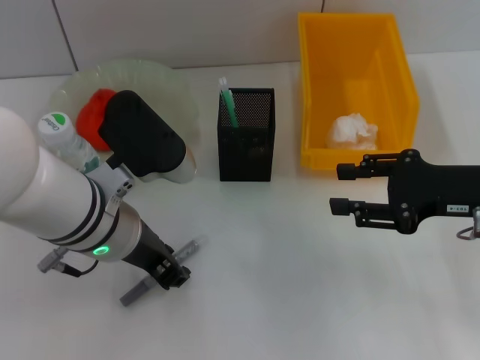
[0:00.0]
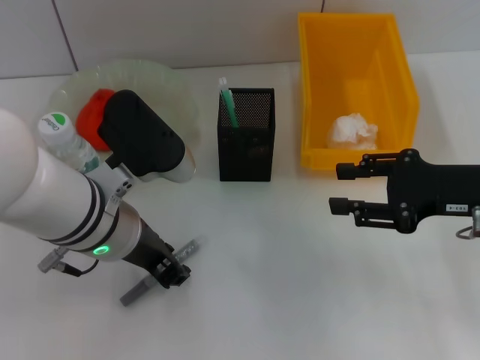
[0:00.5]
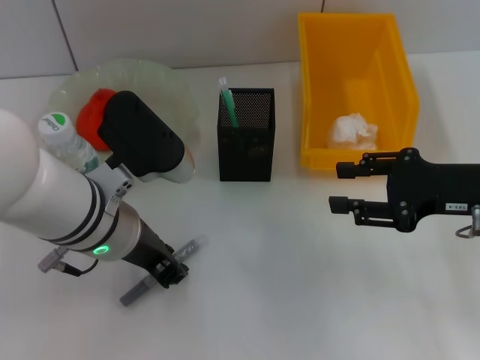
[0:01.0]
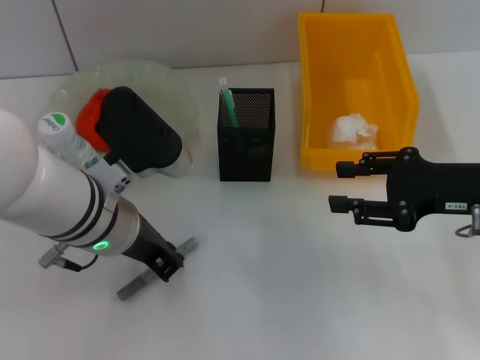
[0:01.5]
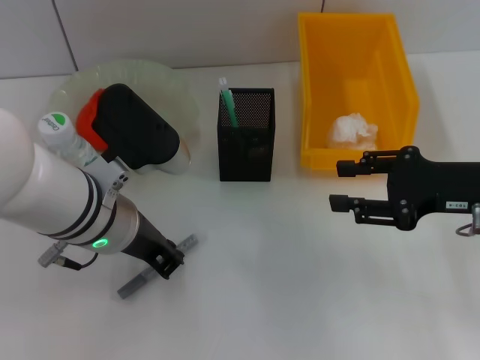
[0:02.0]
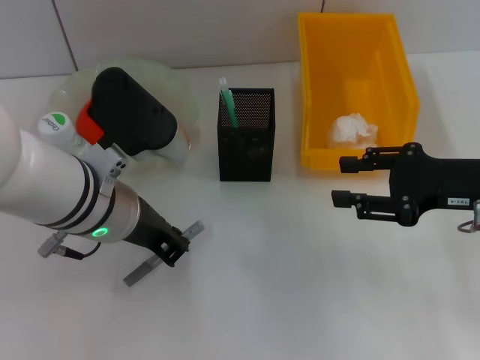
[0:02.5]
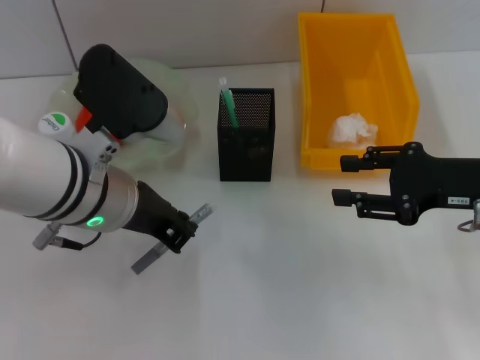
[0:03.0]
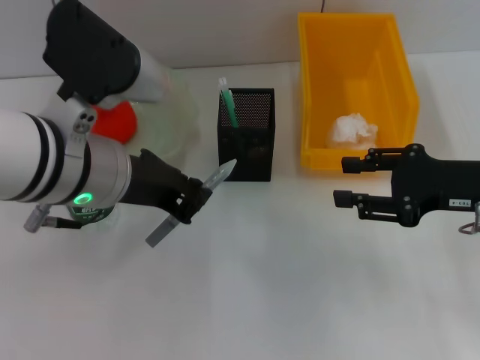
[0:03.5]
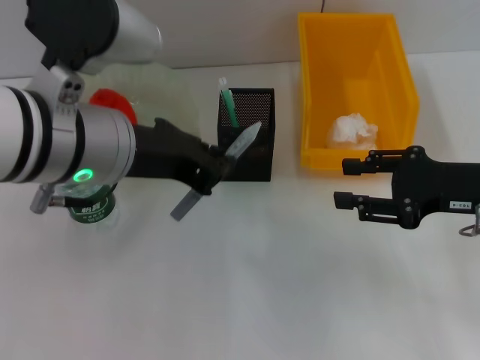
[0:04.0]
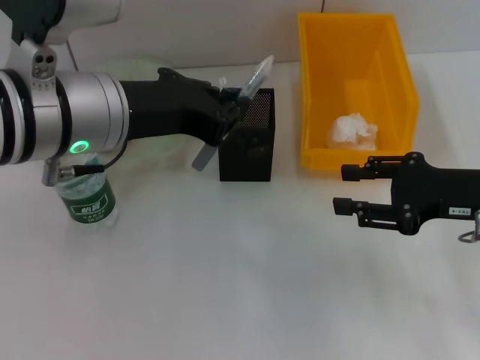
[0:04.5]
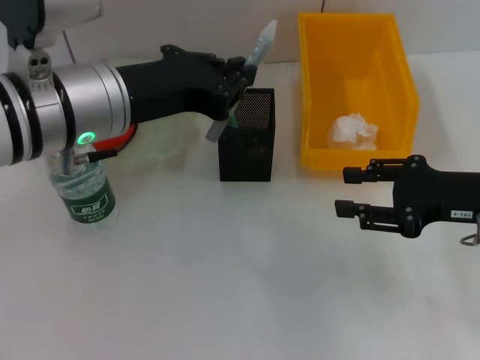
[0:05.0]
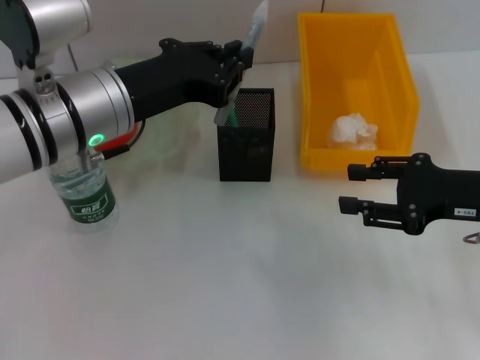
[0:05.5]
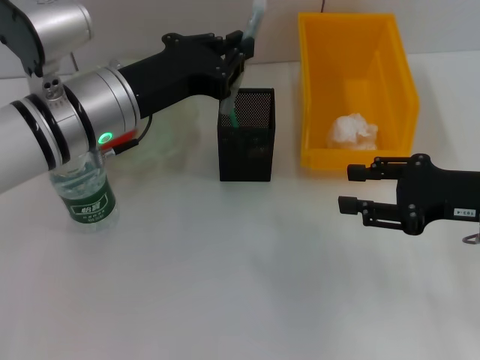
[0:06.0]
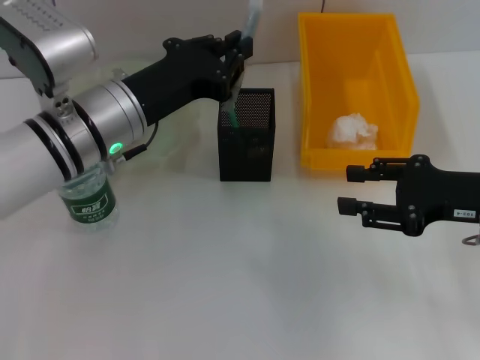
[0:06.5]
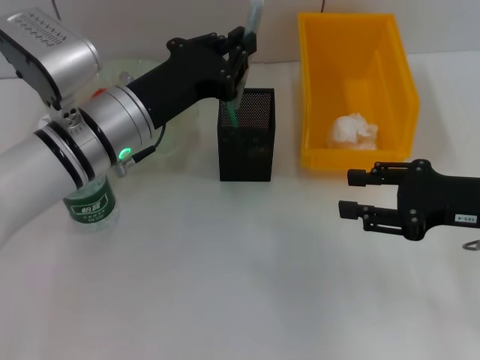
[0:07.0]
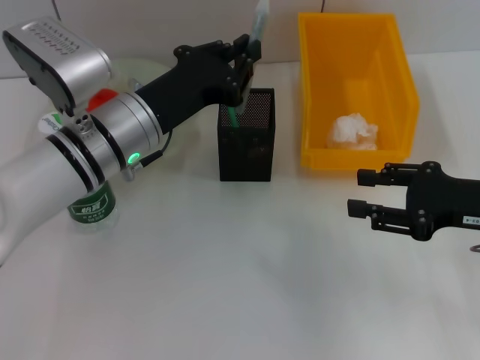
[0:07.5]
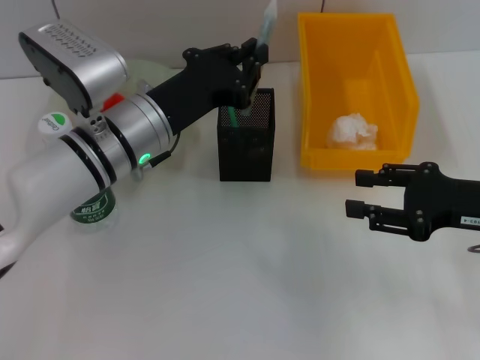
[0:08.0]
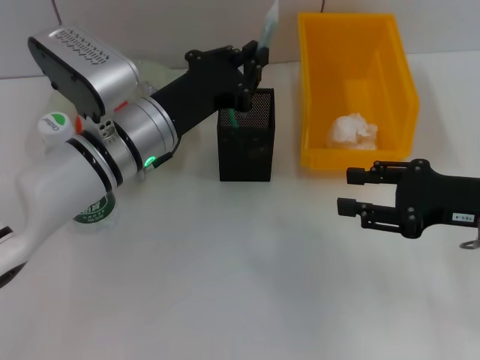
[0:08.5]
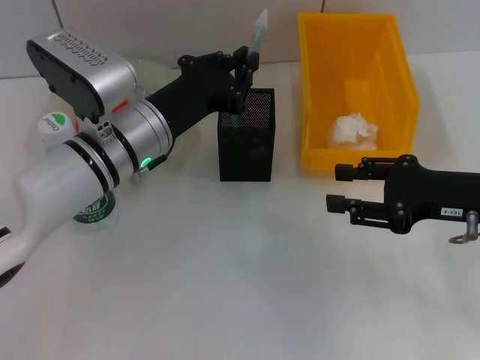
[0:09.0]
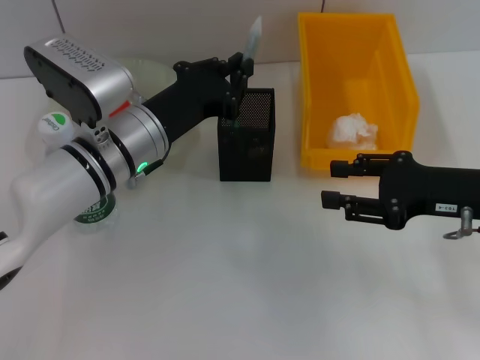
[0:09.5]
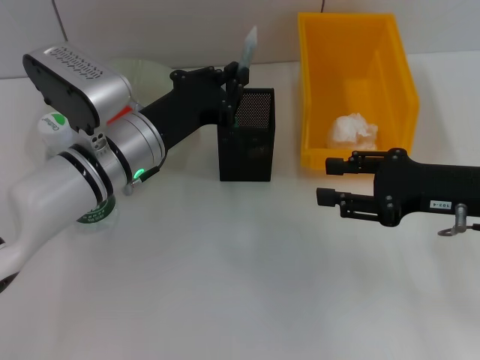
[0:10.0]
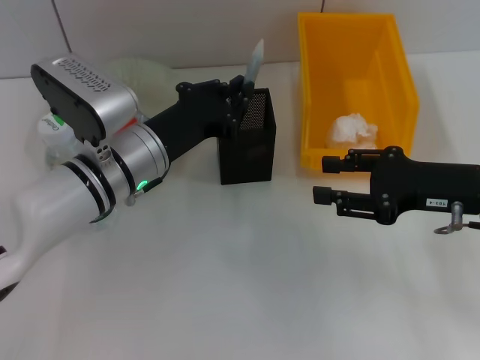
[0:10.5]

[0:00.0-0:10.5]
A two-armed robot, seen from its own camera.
Step, 0:00.0 to 0:02.0: Grab the gray glue with the left hand.
0:00.0 to 0:02.0: Neither gripper changes place.
0:02.0 to 0:04.0: The left gripper heads upward, covering about 10 cm.
0:04.0 to 0:06.5: The left gripper goes about 10 cm downward and forward.
0:06.5 to 0:10.5: The grippers make only small movements.

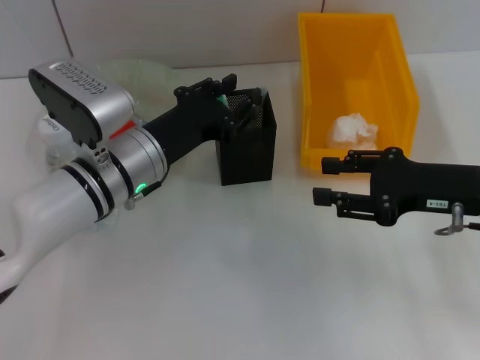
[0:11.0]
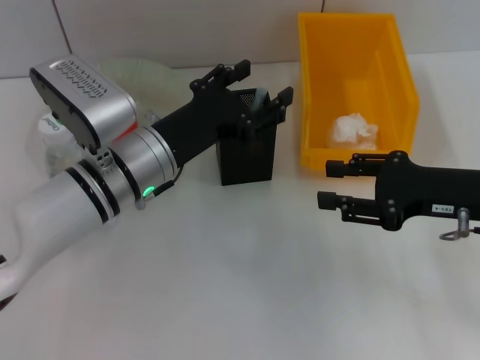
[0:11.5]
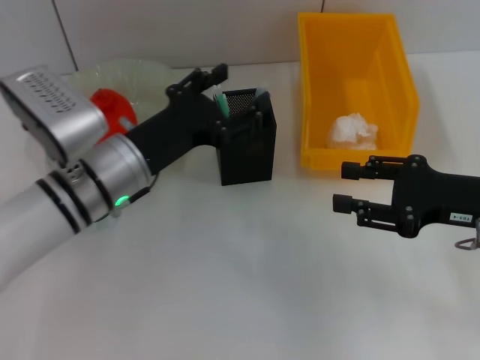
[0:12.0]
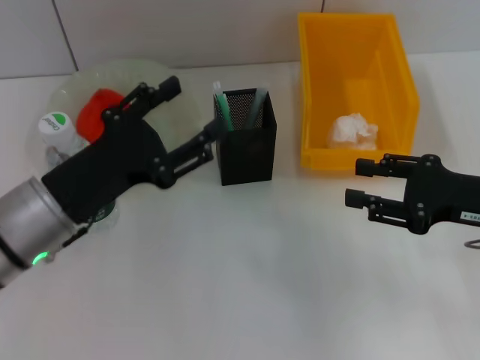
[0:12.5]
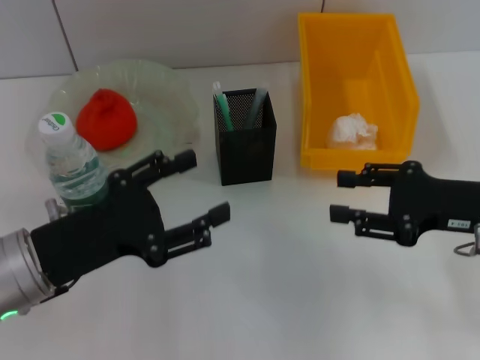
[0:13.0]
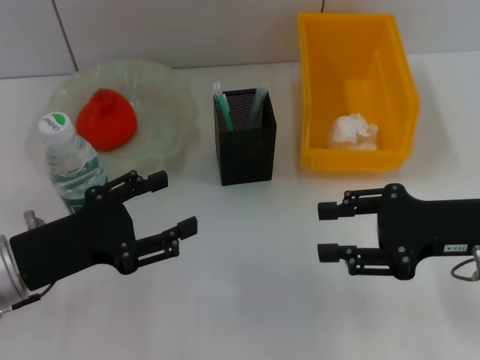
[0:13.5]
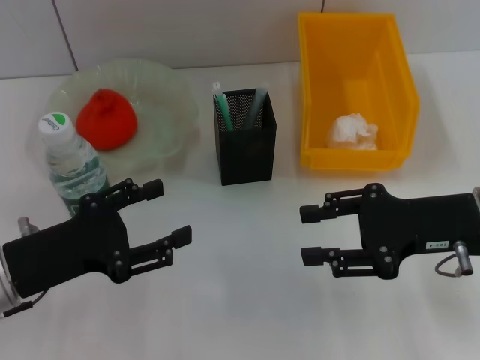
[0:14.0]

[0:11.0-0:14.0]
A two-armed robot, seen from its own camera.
0:11.0 to 0:12.5: The left gripper shifts about 10 cm backward and to the left, and opens up.
0:12.5 to 0:14.0: The left gripper is displaced to the left by approximately 5 cm.

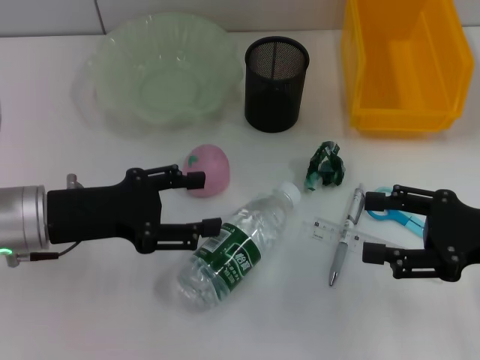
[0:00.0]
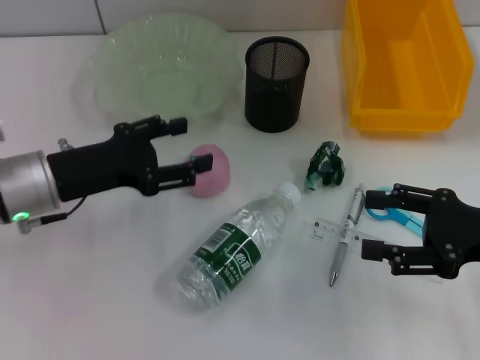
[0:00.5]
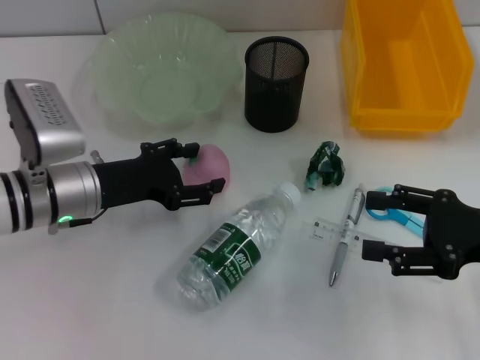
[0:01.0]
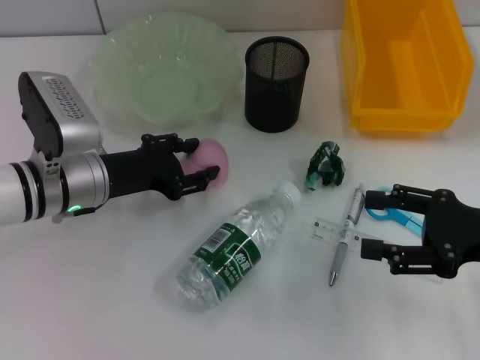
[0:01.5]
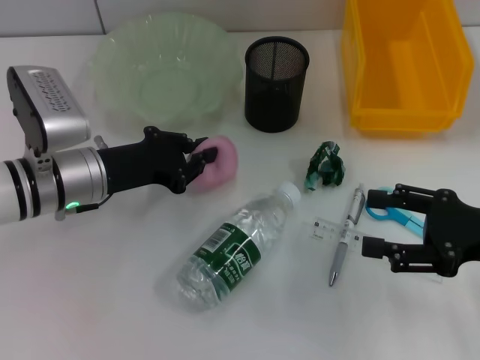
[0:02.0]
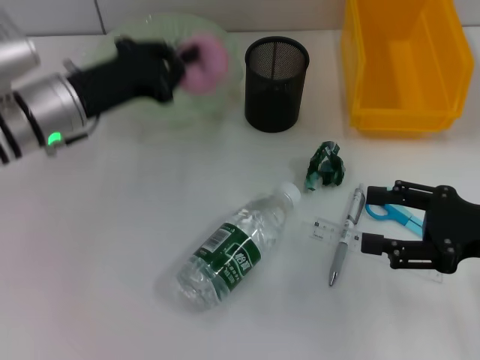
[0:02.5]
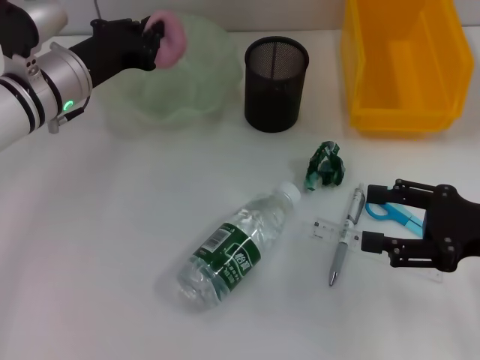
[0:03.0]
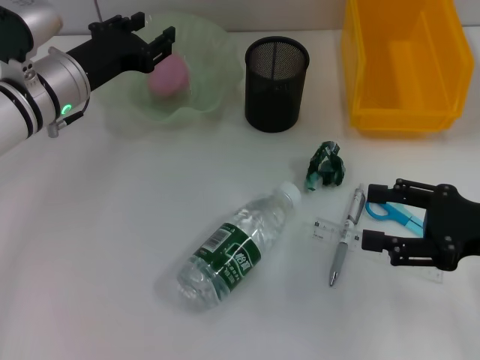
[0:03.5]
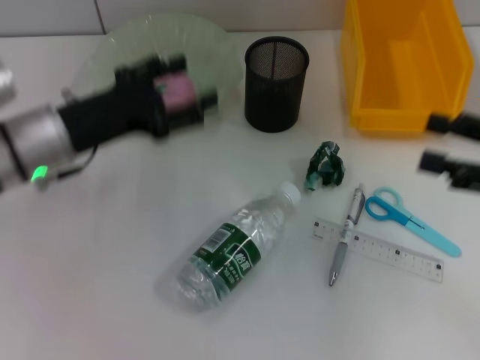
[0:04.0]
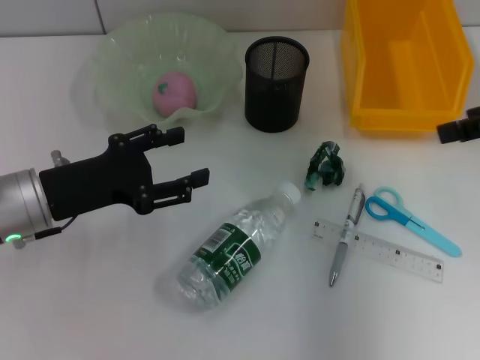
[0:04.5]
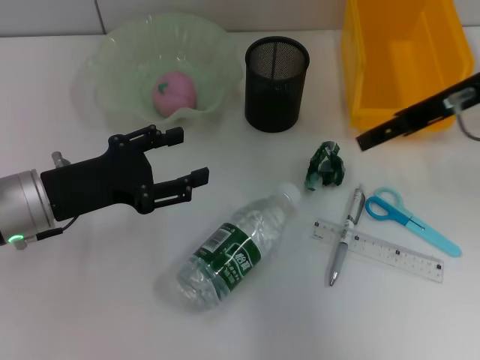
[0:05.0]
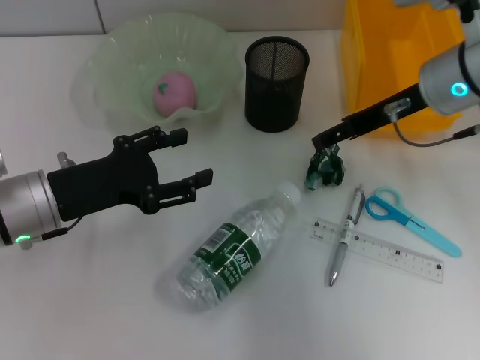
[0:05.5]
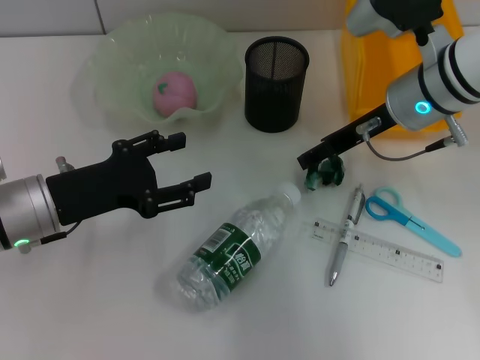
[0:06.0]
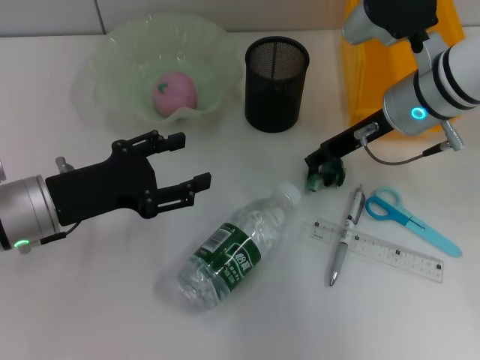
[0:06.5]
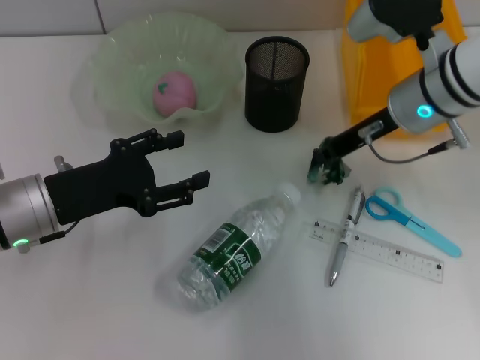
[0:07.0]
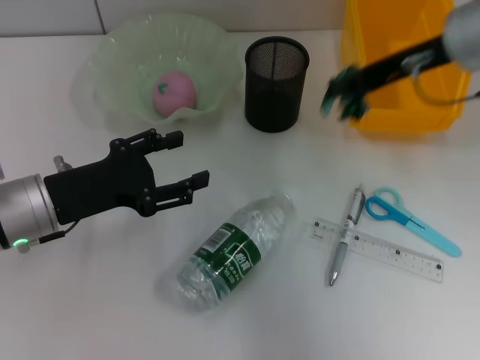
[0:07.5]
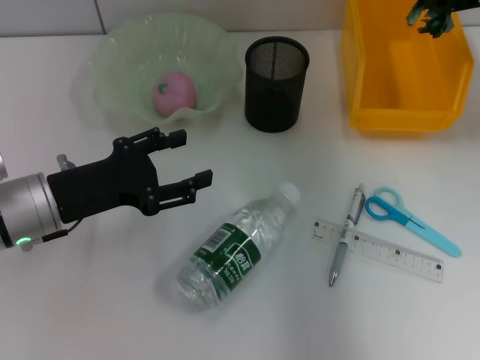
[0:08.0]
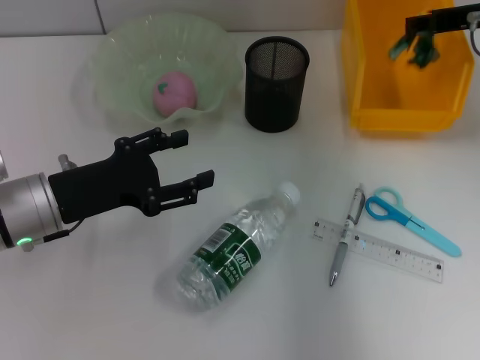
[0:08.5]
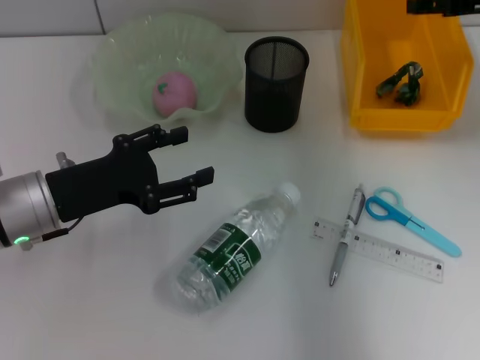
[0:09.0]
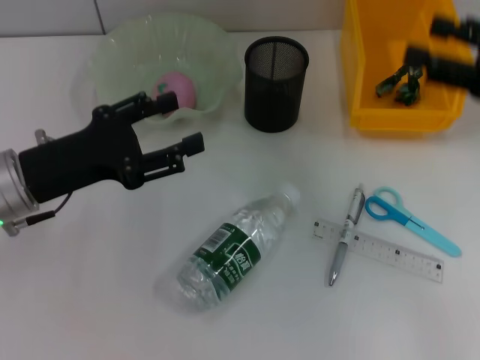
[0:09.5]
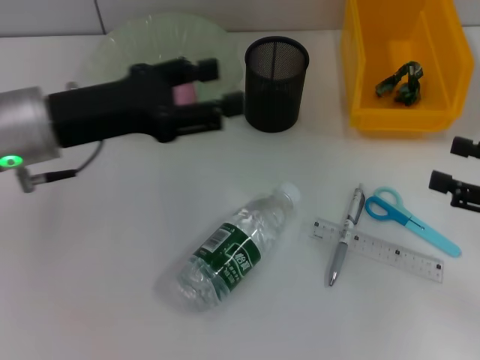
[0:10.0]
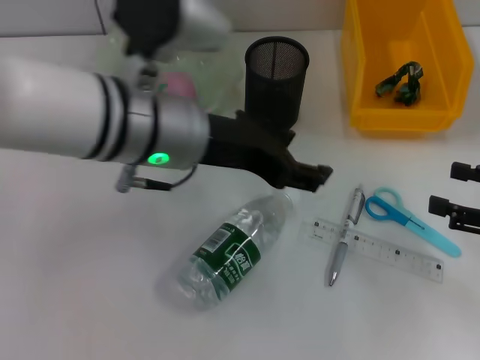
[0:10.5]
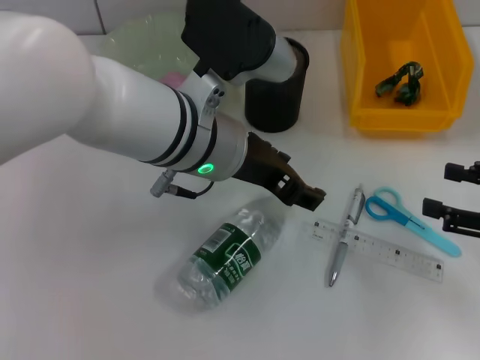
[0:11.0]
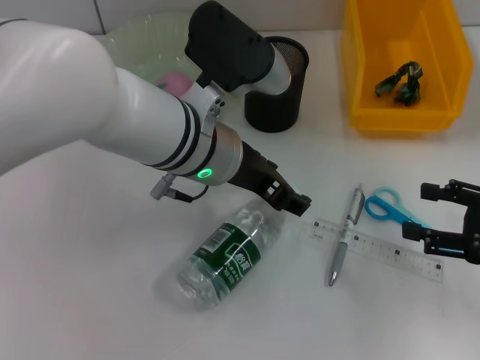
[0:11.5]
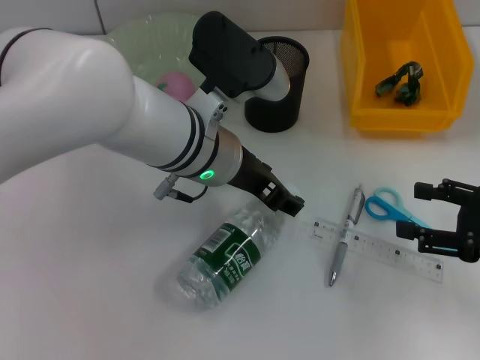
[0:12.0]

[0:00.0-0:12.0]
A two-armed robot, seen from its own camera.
Step, 0:00.0 to 0:01.5: Grab the peach with the left hand.
Step, 0:02.0 to 0:03.0: Place the peach into the fruit bowl with the left hand.
Step, 0:04.0 to 0:06.5: Grab the plastic with the right hand.
Step, 0:07.0 to 0:08.5: Place the plastic into the trash can with the right hand.
0:00.0 to 0:02.0: The left gripper is displaced forward by some 5 cm, and closes its fingers.
0:02.0 to 0:04.0: The right gripper moves about 5 cm; the left gripper opens its fingers.
0:04.0 to 0:06.0: The right gripper travels to the left and forward by approximately 20 cm; the left gripper ends up roughly 5 cm from where it was.
0:06.0 to 0:08.0: The right gripper travels to the right and upward by roughly 15 cm, and closes up.
0:08.0 to 0:10.0: The right gripper moves backward, downward and to the right, roughly 20 cm, and opens its fingers. Meanwhile the left gripper heads upward, covering about 10 cm.
0:10.0 to 0:12.0: The left gripper heads to the right, covering some 15 cm.
